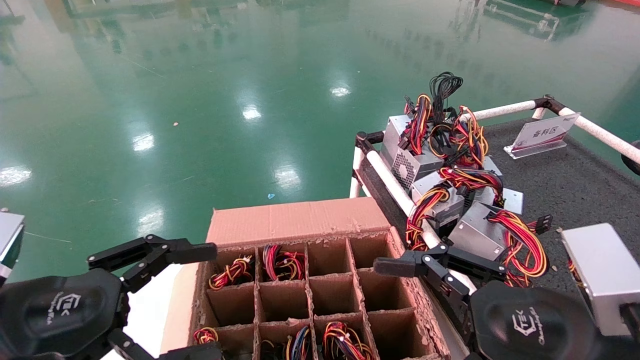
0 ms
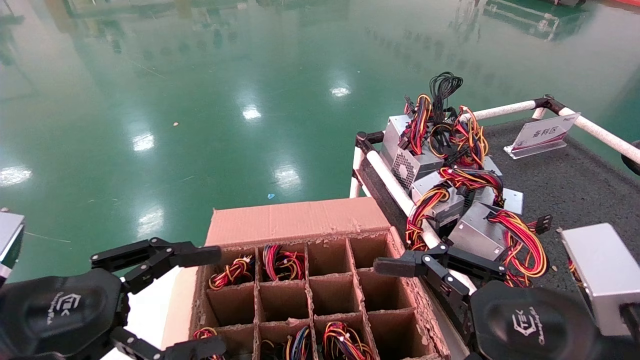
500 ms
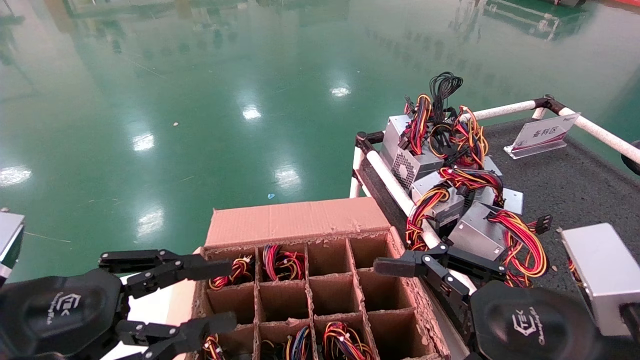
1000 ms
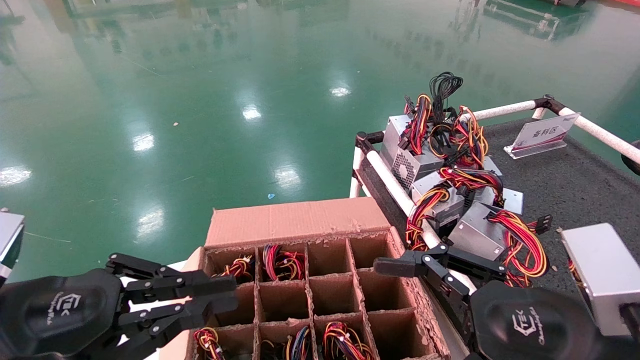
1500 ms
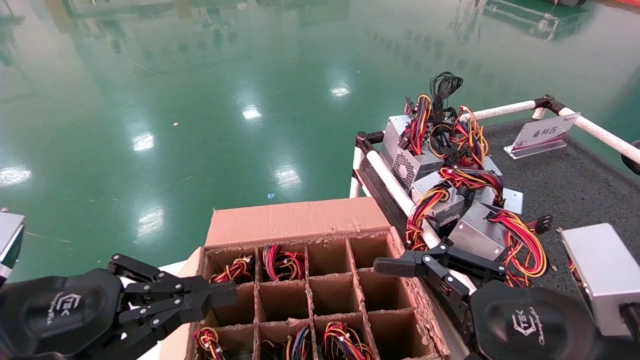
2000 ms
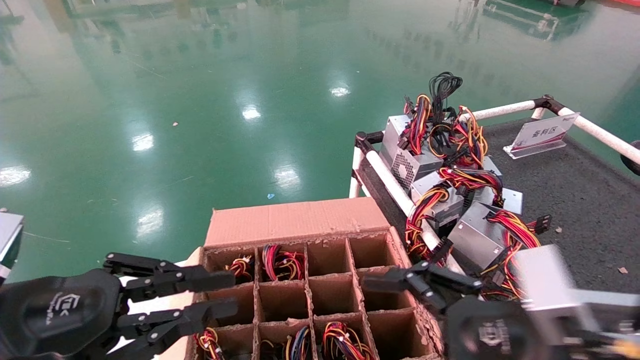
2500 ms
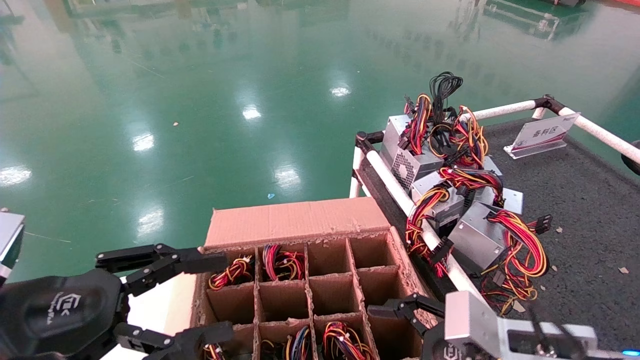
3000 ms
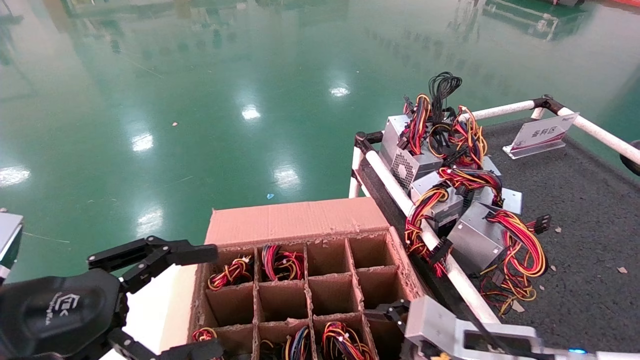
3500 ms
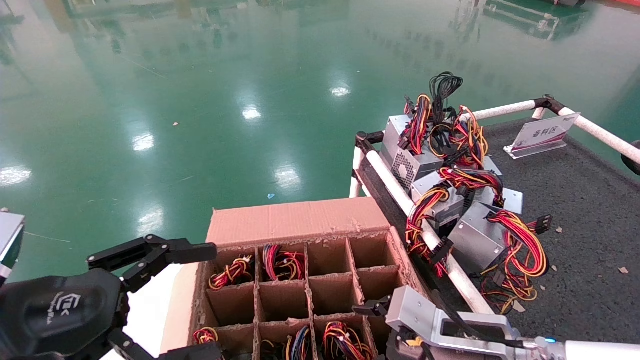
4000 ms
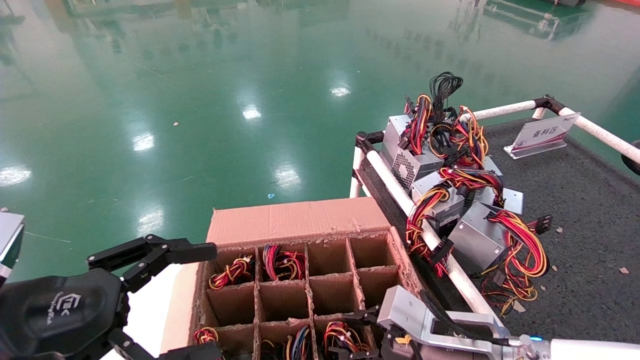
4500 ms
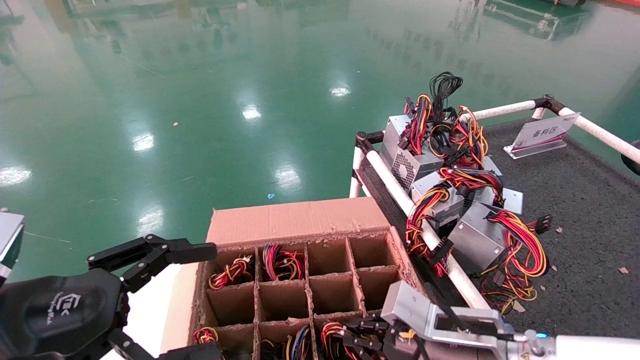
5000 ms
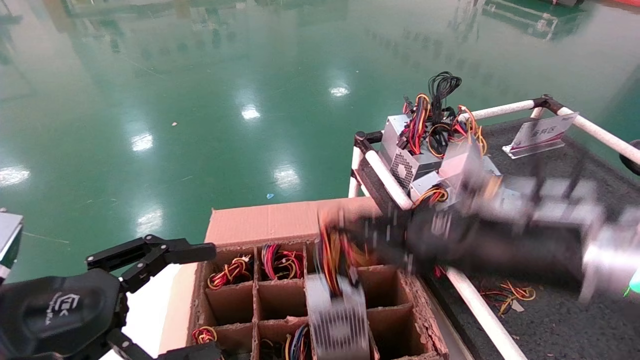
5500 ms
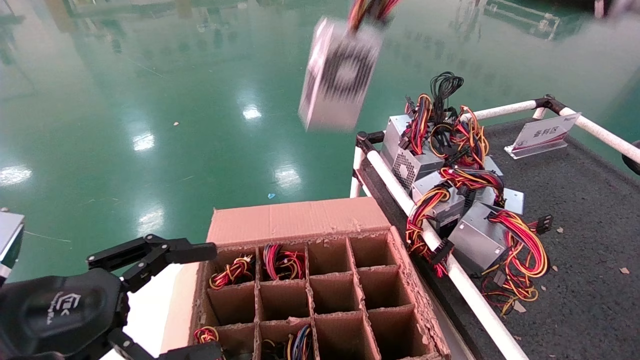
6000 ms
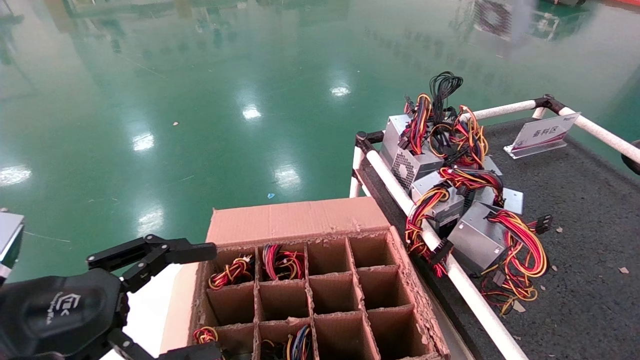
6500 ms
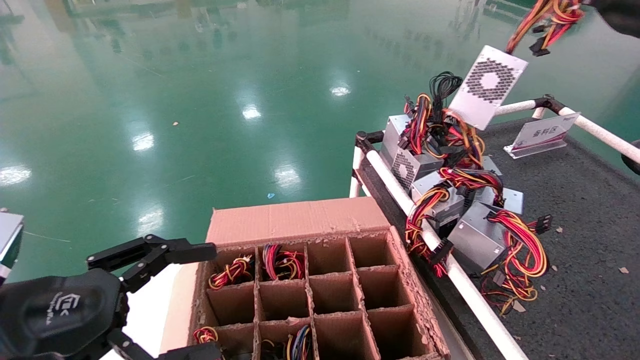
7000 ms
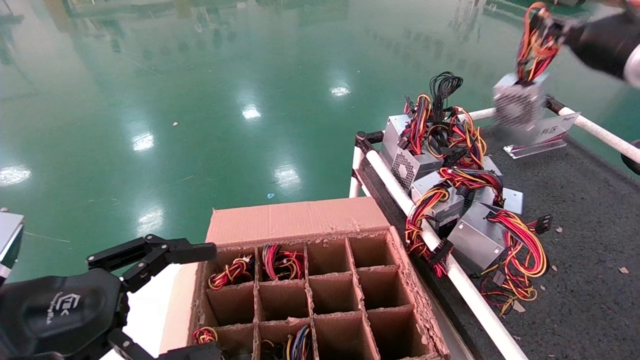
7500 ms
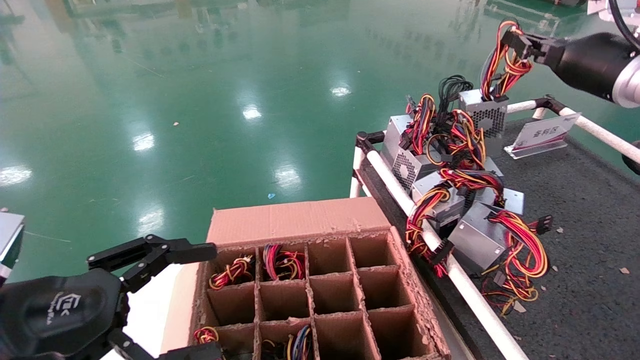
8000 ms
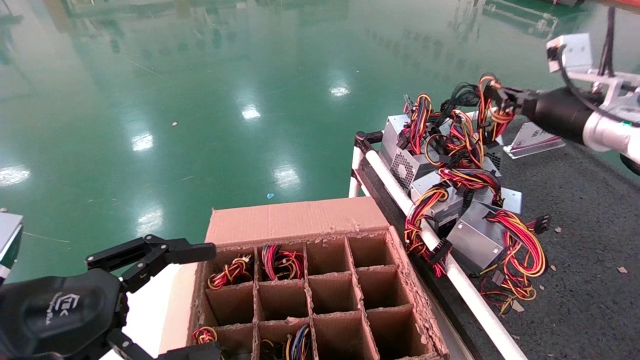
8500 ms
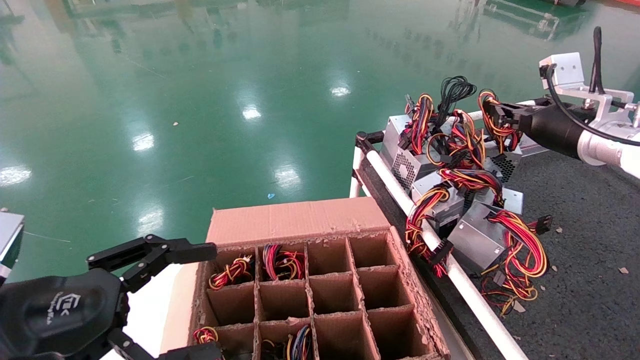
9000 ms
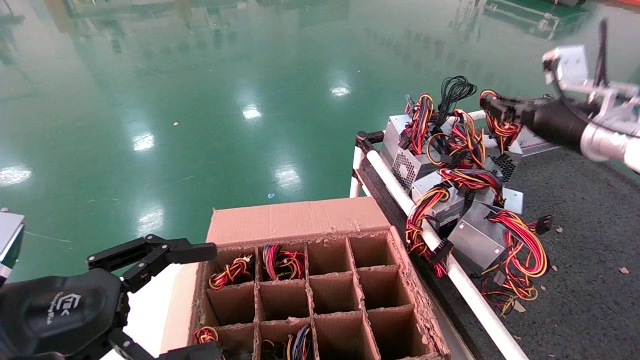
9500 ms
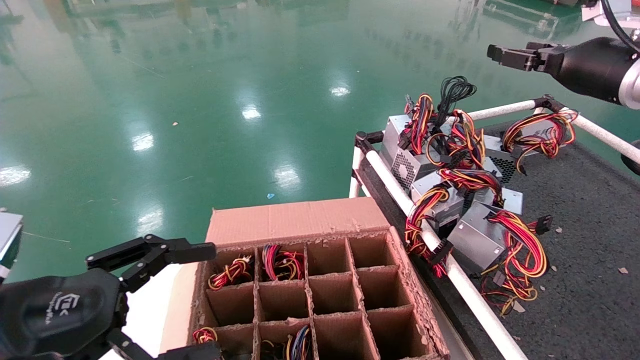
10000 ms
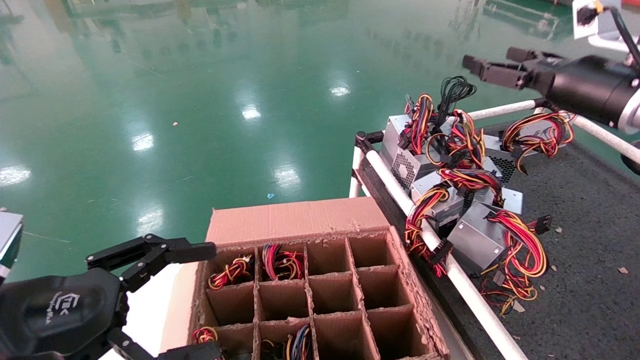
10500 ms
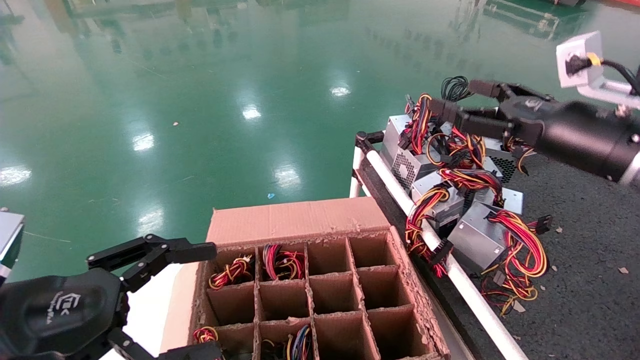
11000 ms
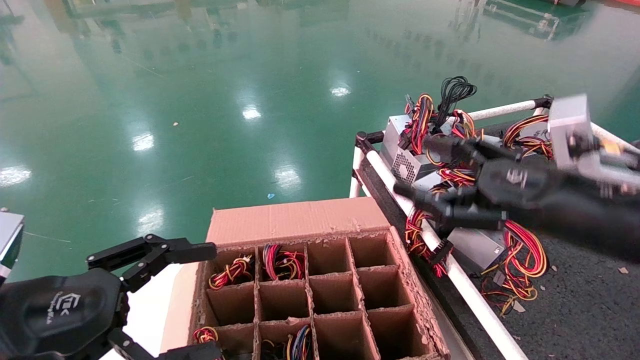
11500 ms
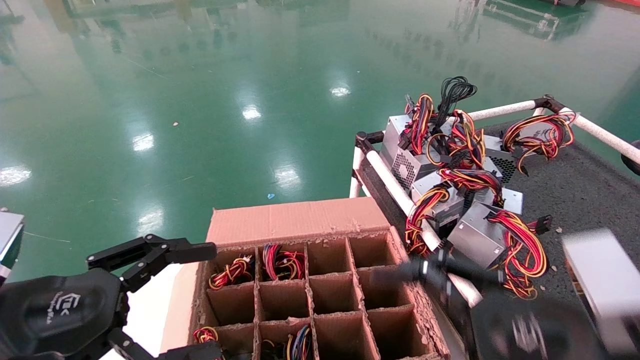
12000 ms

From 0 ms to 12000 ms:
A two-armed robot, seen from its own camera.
Step, from 3000 ms to 5000 ms: Grab and lift the power supply from the large box.
Step, from 5500 ms to 9500 ms: Place the power supply on the operating table.
From 0 ms to 2000 ms: The left gripper closes.
From 2000 ms to 4000 ms: The right gripper is displaced forward and downward by roughly 15 cm, while the left gripper opens up.
From 4000 ms to 6000 ms: The right gripper travels upward by roughly 40 cm, and closes its fingers.
From 6000 ms to 8000 ms: The right gripper moves to the right, forward and downward, about 15 cm.
From 8000 ms to 10000 ms: The right gripper travels downward and back again, approximately 10 cm each way, and opens its fingers.
From 10000 ms to 12000 ms: The right gripper travels backward, downward and to the left by approximately 30 cm, and opens.

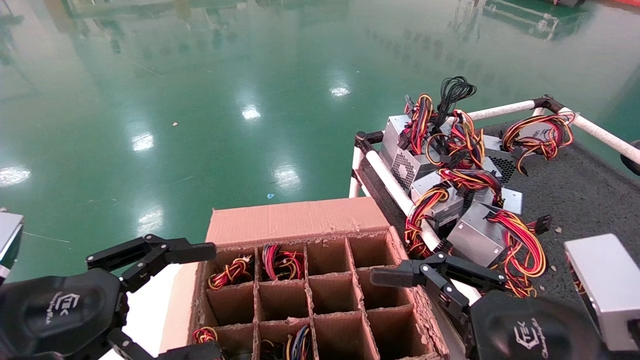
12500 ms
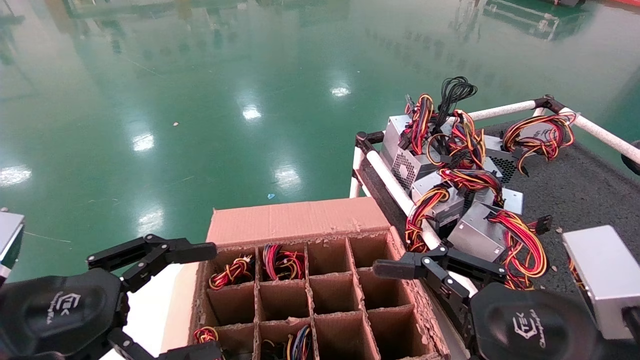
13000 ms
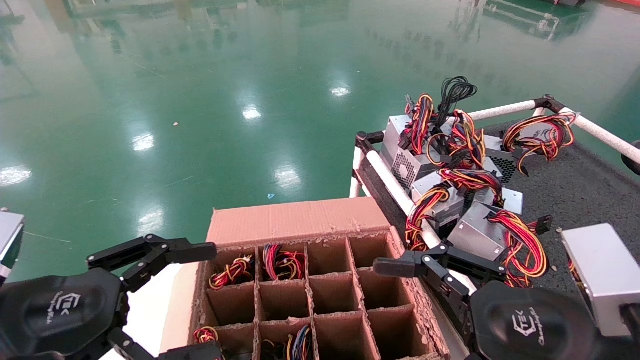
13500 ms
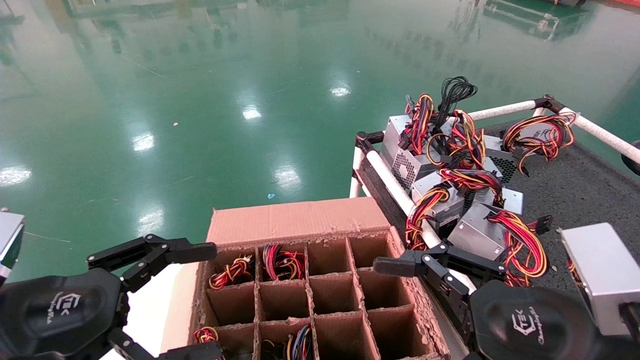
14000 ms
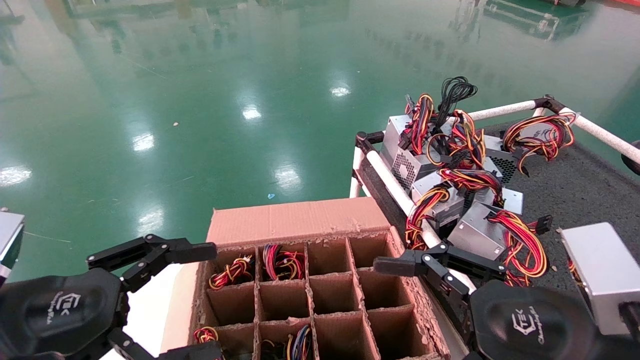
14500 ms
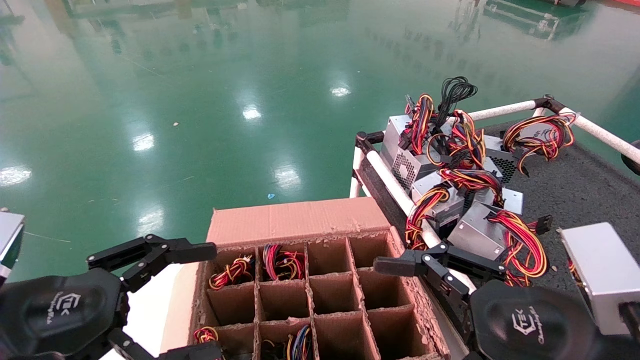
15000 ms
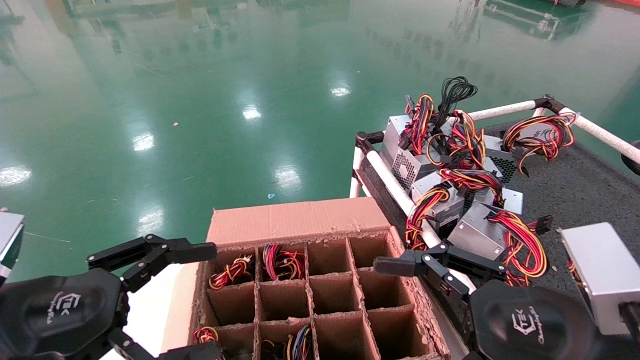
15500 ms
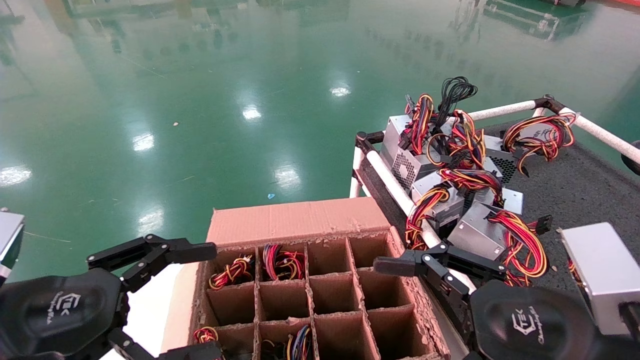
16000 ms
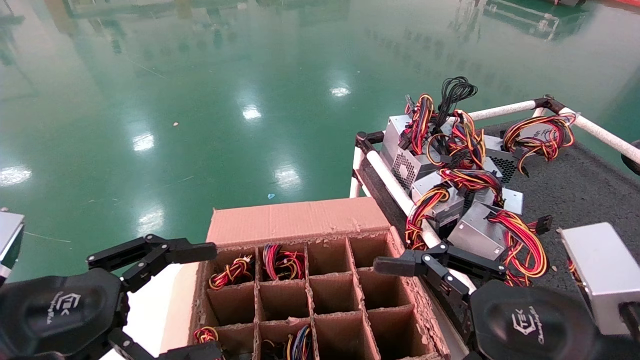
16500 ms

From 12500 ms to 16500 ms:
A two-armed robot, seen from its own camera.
From 12500 ms to 16500 ms: Both grippers stay about where they are.
